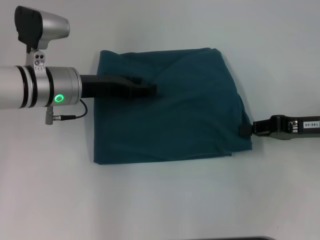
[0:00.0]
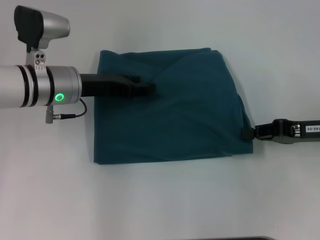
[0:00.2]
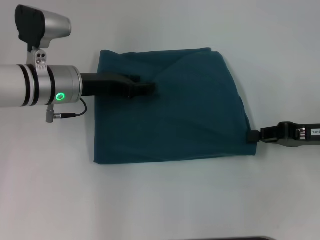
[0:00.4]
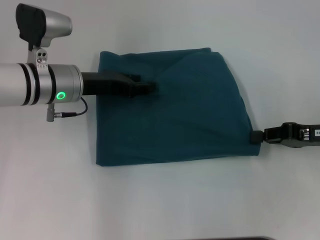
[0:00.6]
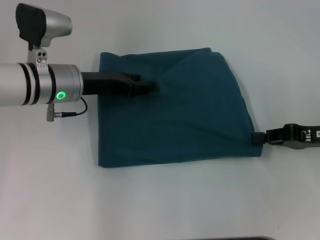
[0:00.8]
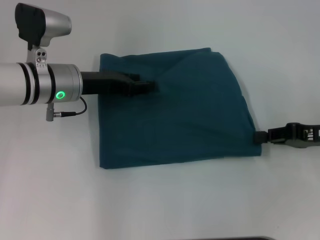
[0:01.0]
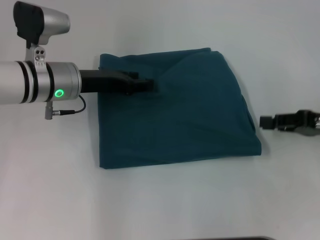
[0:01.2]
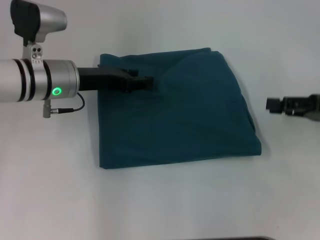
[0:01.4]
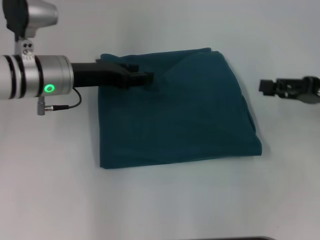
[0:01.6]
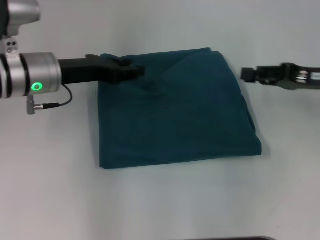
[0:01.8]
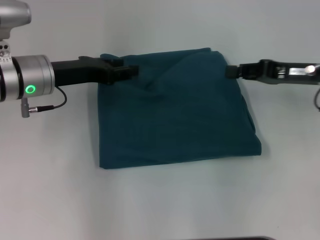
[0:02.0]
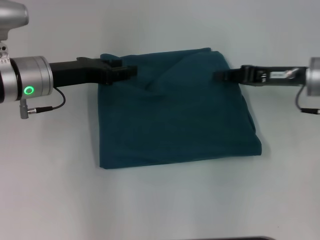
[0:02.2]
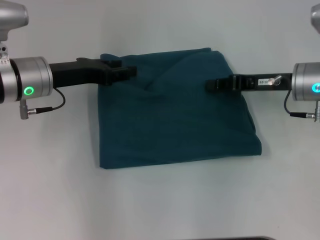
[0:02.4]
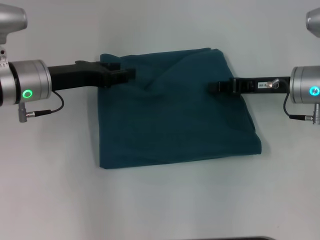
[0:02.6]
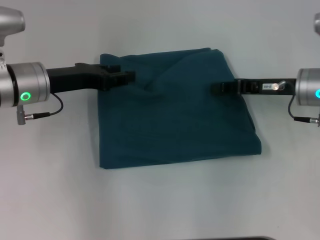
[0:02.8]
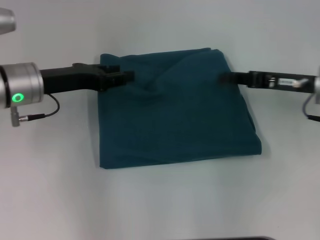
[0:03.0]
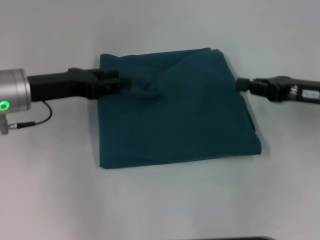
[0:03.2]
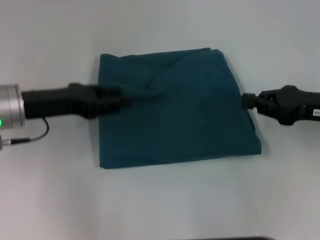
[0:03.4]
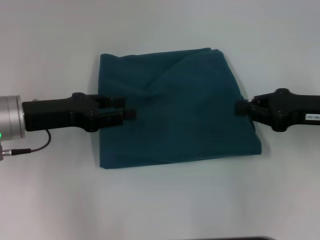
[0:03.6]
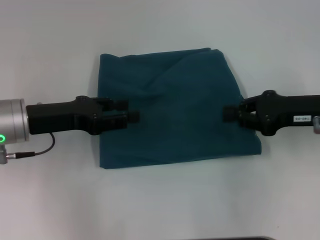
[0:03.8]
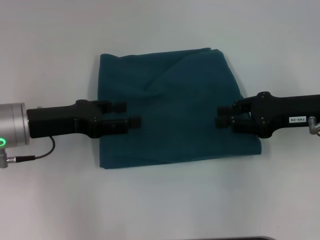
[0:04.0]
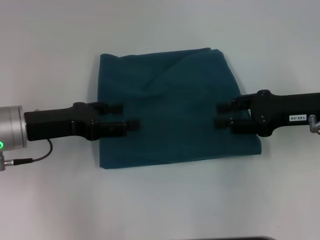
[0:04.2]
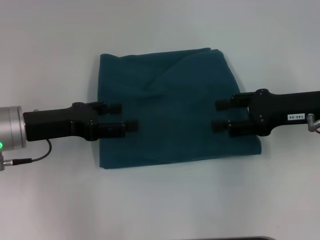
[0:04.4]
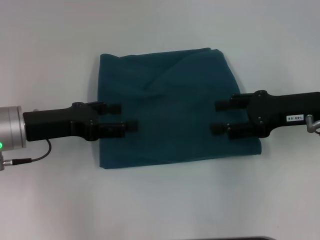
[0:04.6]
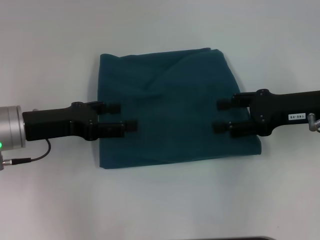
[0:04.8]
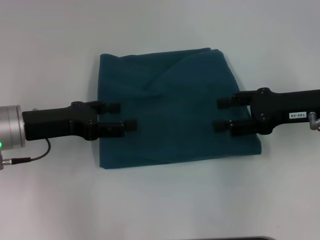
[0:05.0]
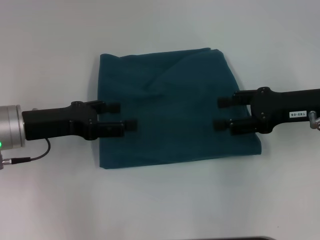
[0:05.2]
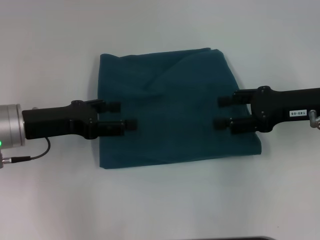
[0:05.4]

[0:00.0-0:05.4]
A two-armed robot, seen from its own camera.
0:00.0 to 0:01.4: The right gripper opens up.
0:01.4 to 0:02.8: The right gripper heads to the left and forward, covering roughly 10 cm, and closes its fingers.
0:02.8 to 0:04.0: The left gripper travels backward by approximately 5 cm; the right gripper ends up some 5 cm from where it was.
0:04.0 to 0:05.4: The right gripper opens its fingers.
